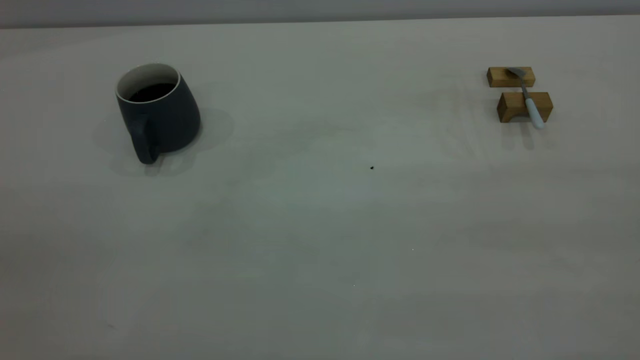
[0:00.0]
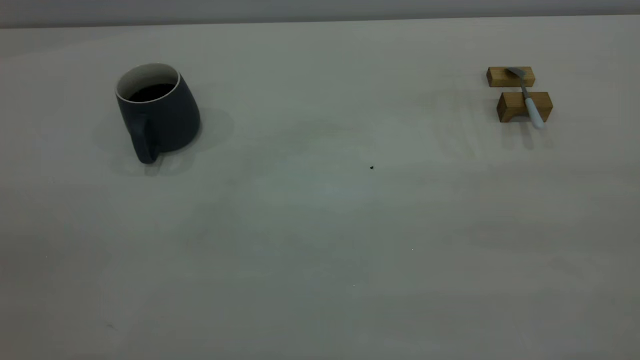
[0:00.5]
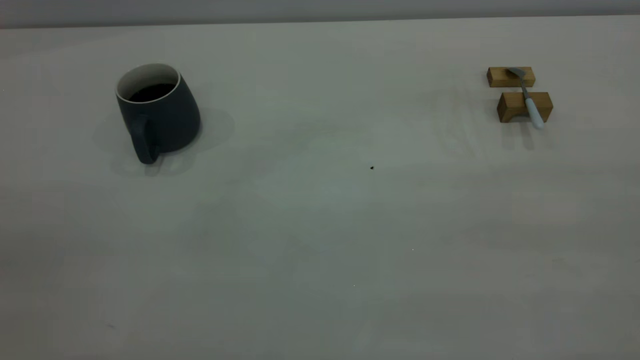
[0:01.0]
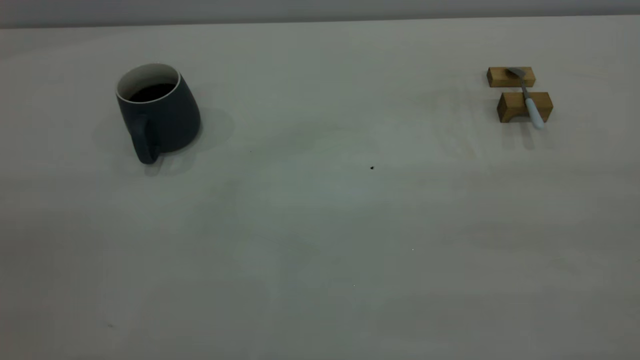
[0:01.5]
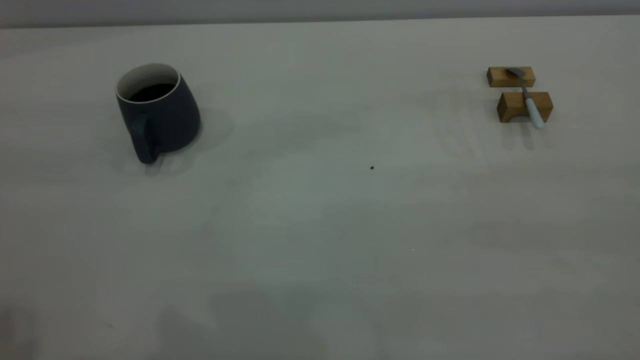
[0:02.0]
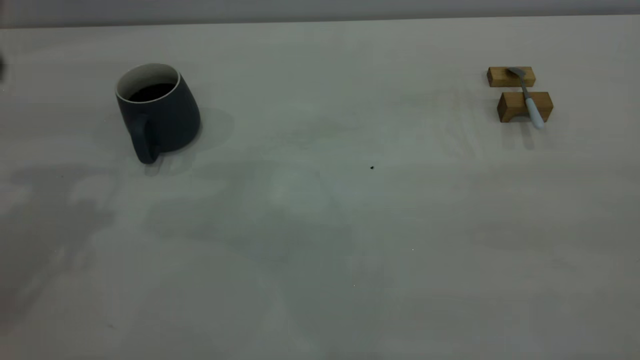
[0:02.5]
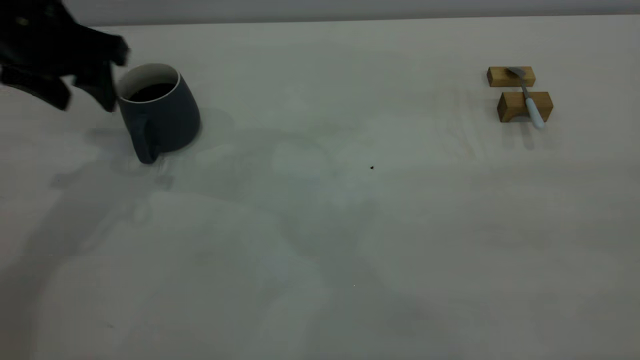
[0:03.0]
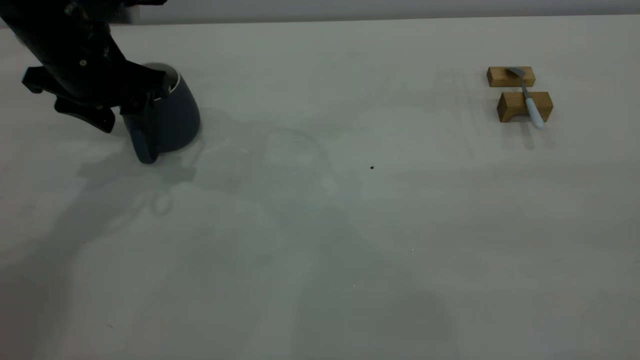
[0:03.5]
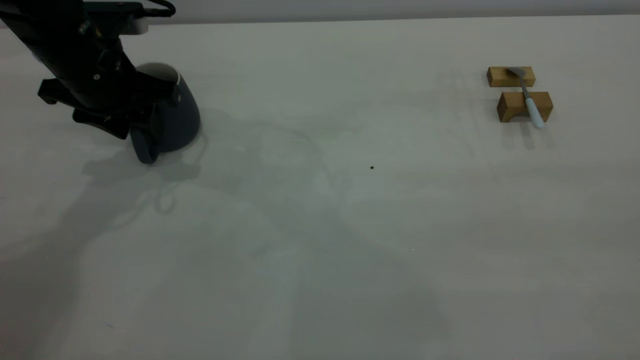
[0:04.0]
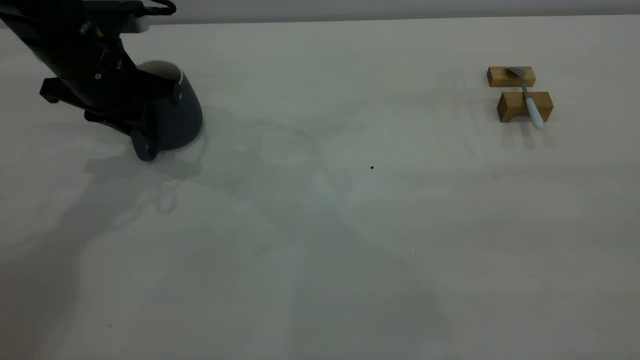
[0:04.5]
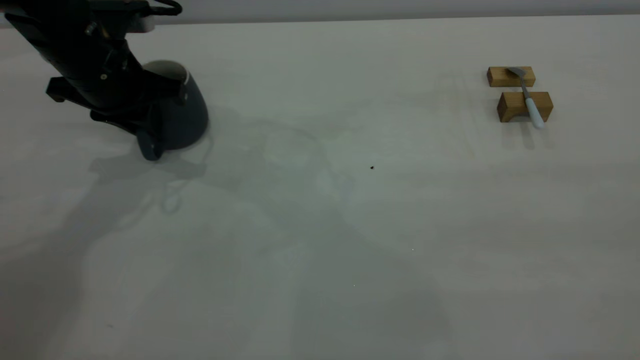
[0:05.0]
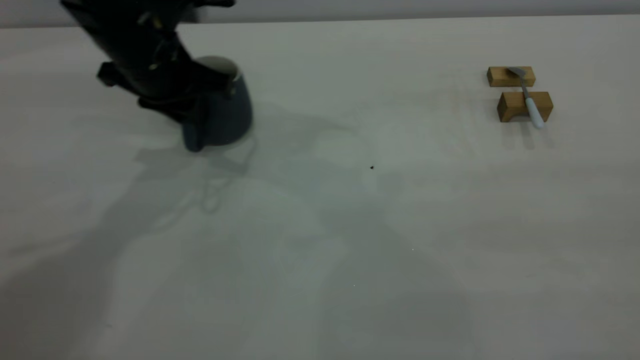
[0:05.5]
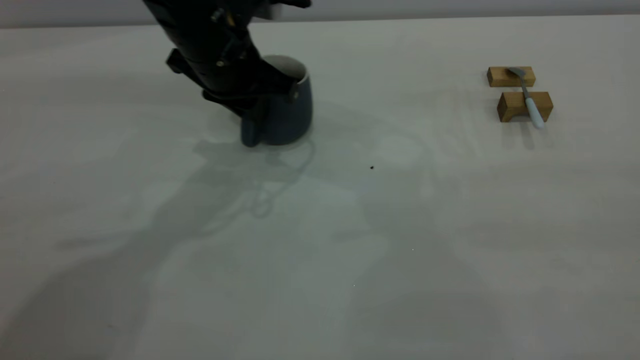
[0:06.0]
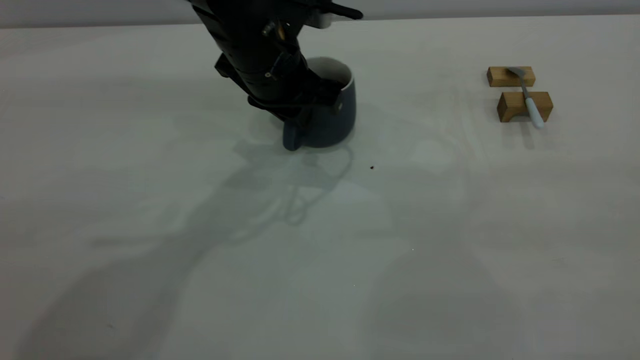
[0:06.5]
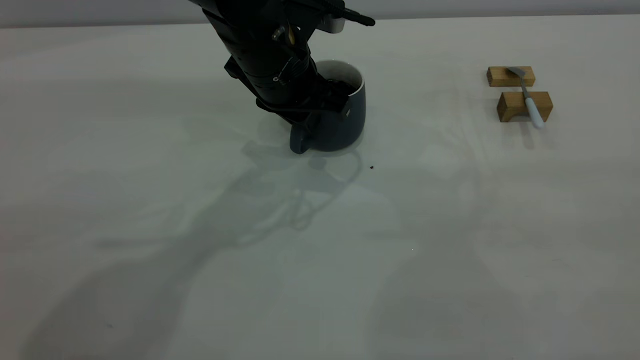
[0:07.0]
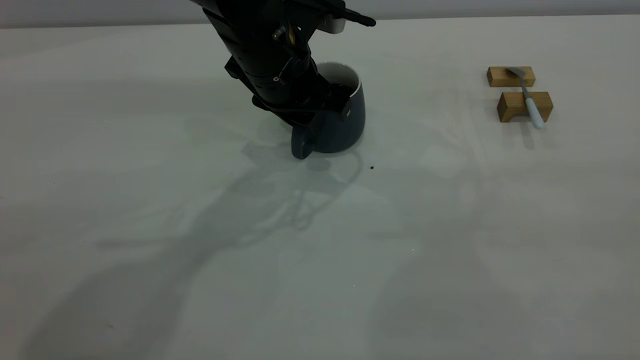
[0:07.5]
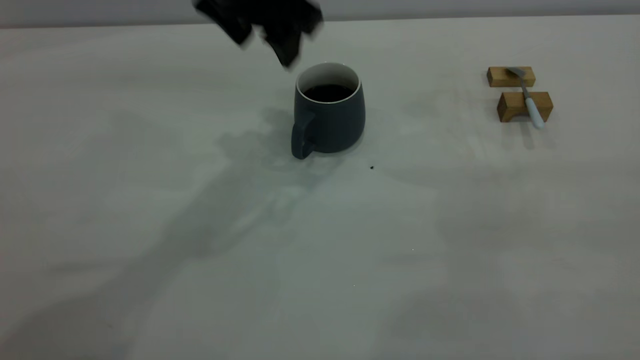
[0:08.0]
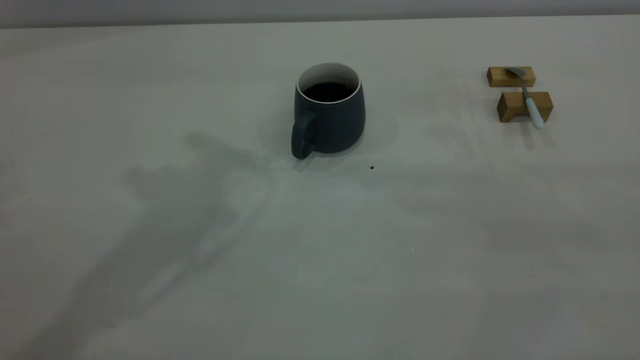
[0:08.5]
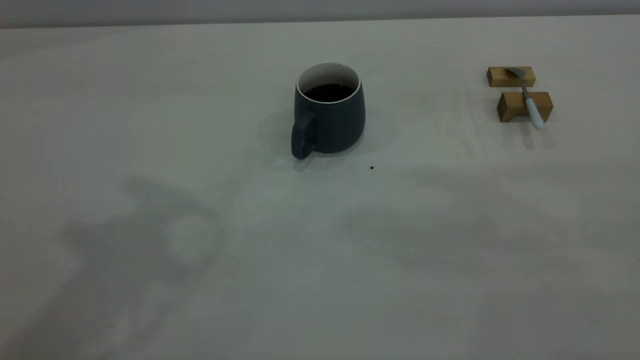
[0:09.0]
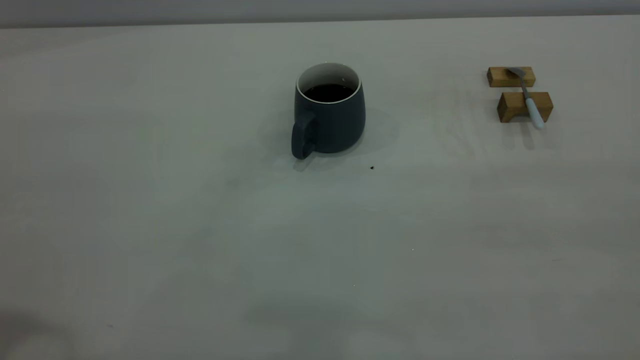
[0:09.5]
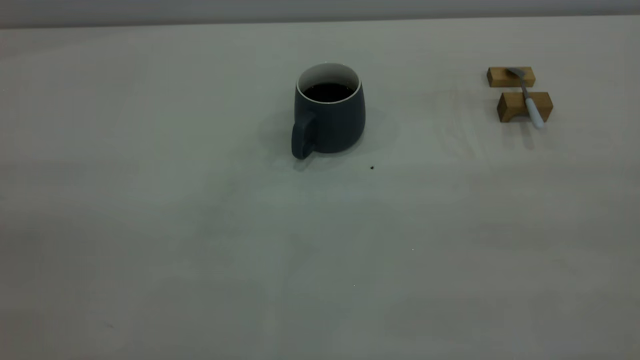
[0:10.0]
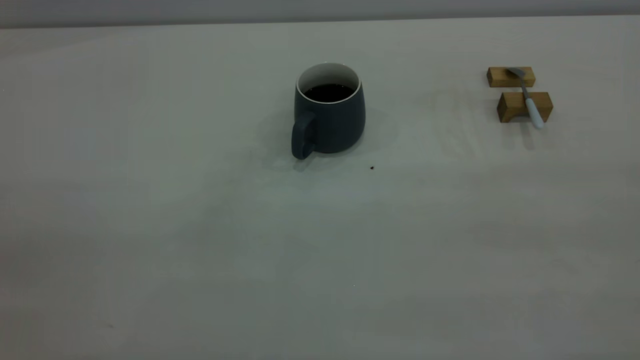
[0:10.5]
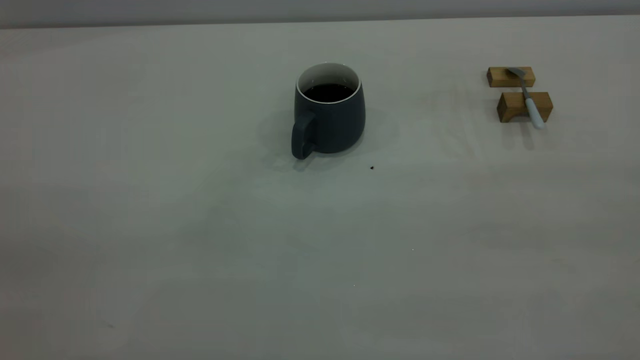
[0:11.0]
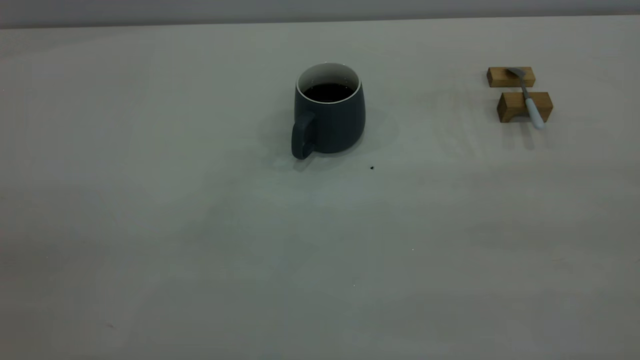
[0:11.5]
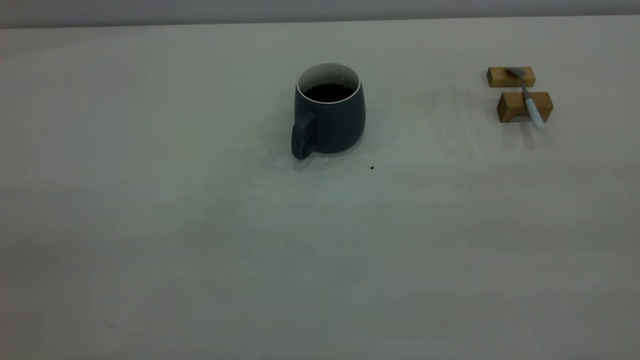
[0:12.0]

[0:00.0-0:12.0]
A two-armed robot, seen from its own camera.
Step, 0:00.0 to 0:08.0: Move the cup with coffee to the center of view.
0:02.0 to 0:04.0: The left gripper shifts some 35 cm forward and downward.
0:04.0 to 0:06.0: The left gripper shifts about 15 cm to the right, and closes.
0:06.0 to 0:08.0: The left gripper heads upward, covering some 10 cm, and opens.
0:08.0 to 0:10.0: The left gripper heads backward and to the left, covering roughly 40 cm, and closes.

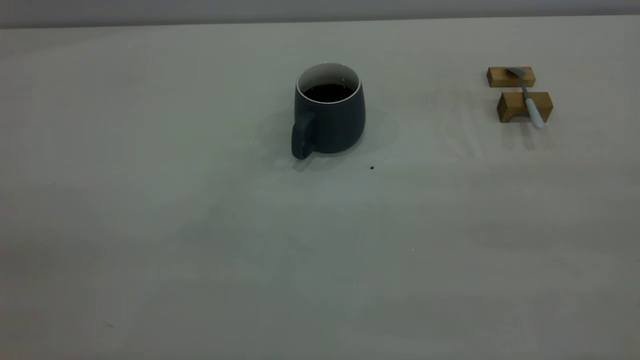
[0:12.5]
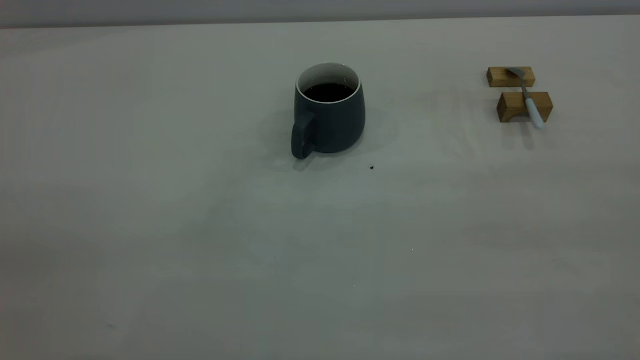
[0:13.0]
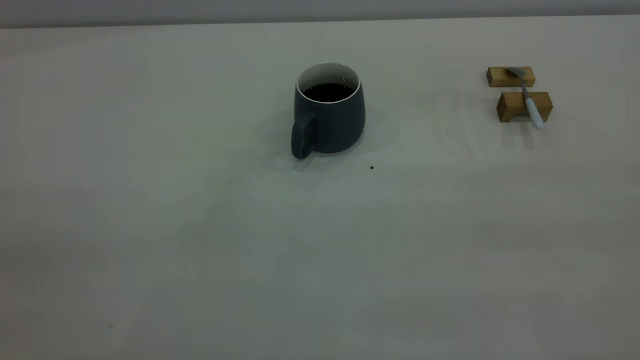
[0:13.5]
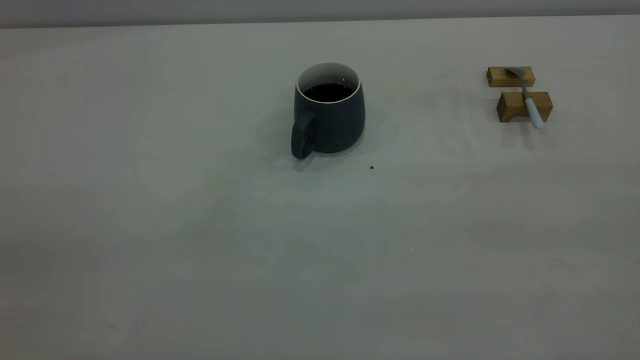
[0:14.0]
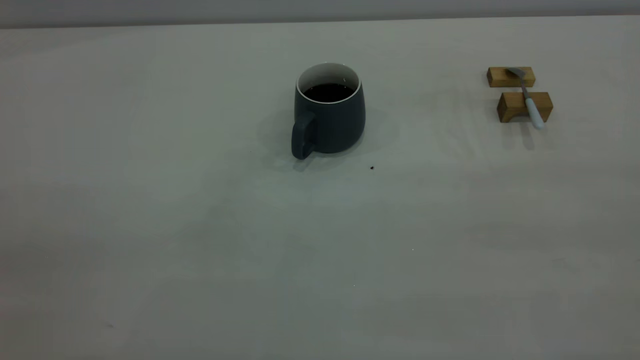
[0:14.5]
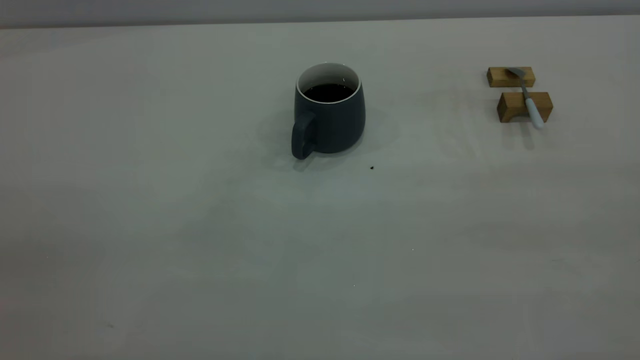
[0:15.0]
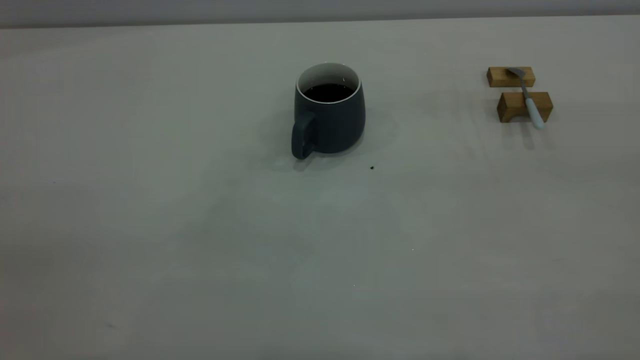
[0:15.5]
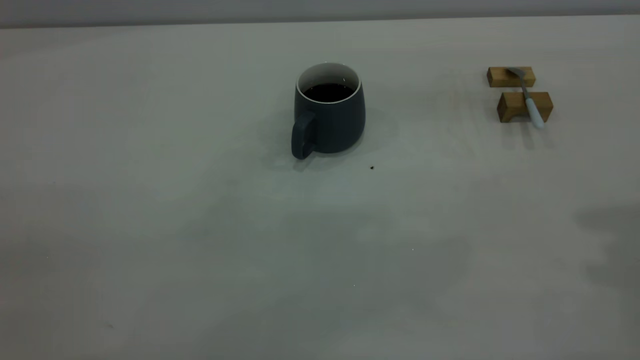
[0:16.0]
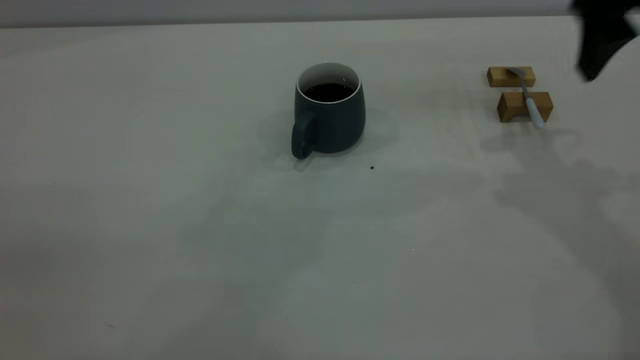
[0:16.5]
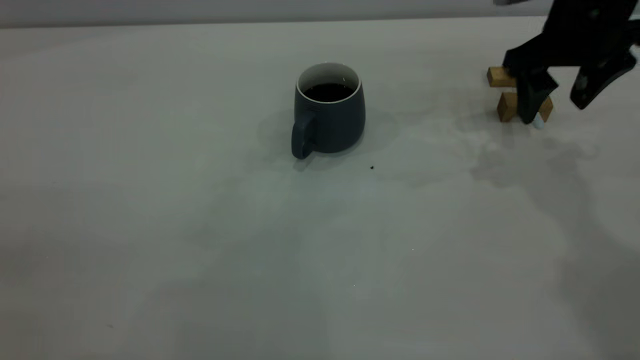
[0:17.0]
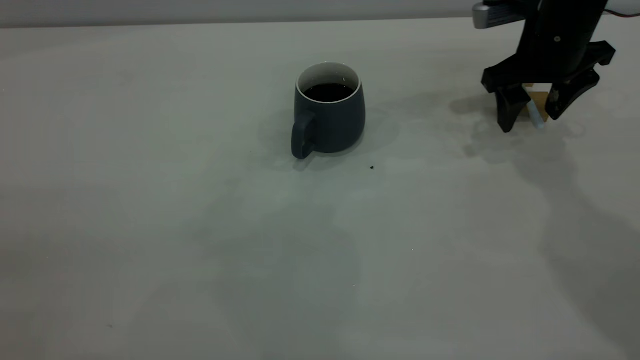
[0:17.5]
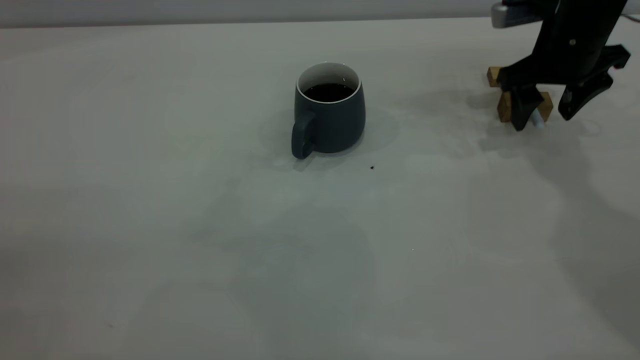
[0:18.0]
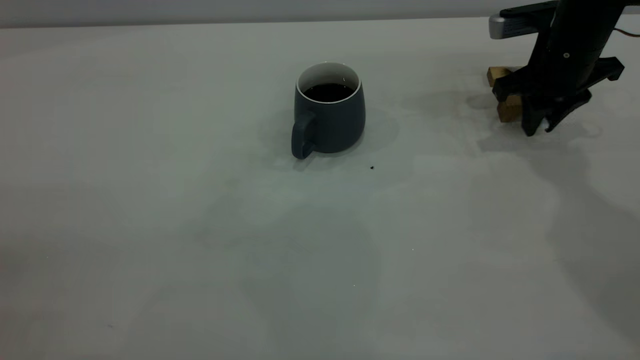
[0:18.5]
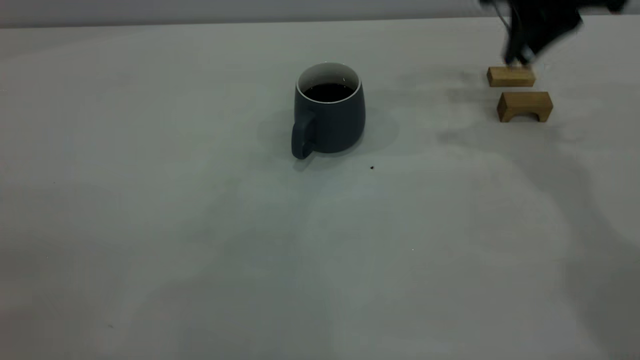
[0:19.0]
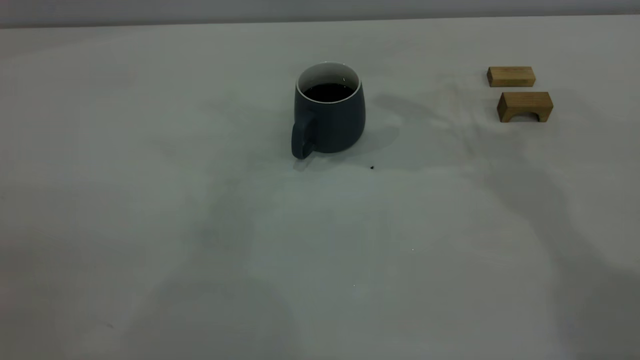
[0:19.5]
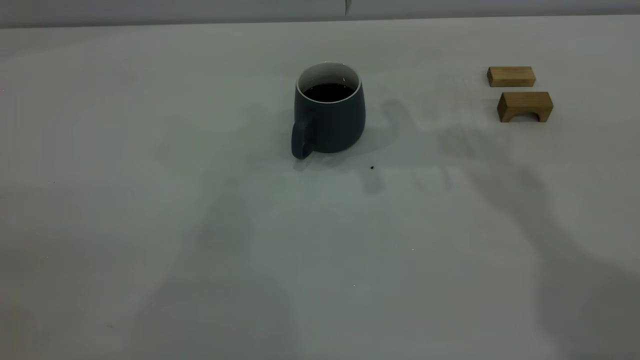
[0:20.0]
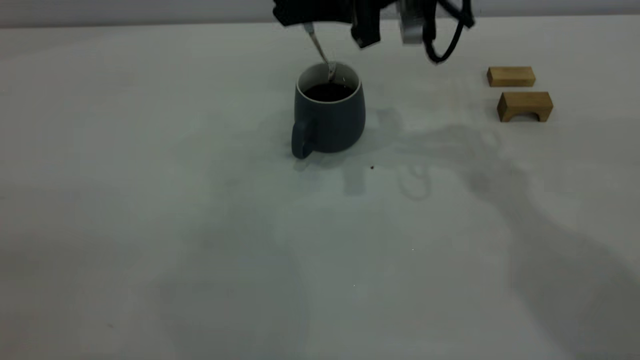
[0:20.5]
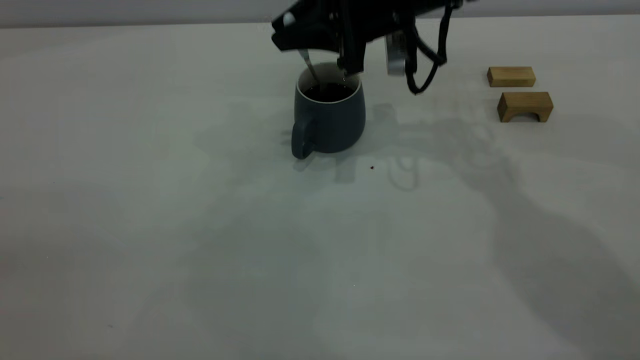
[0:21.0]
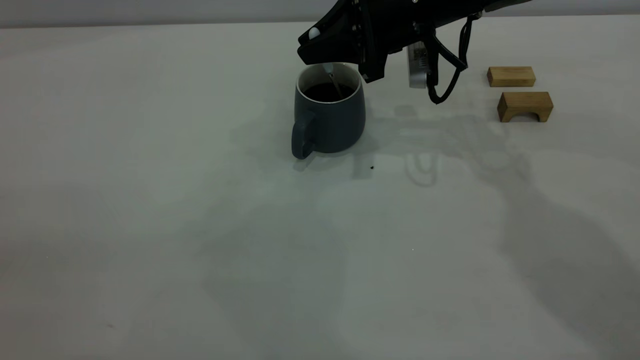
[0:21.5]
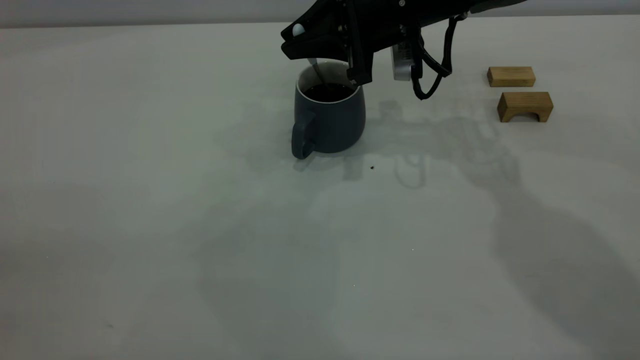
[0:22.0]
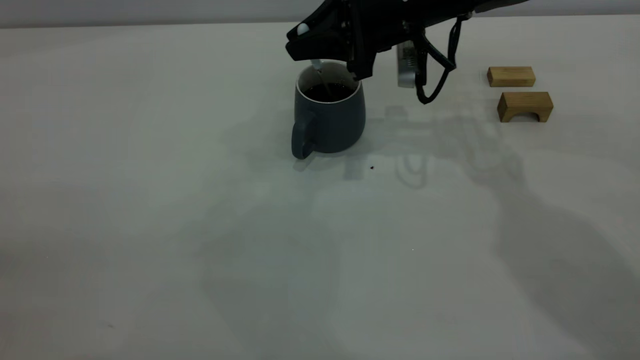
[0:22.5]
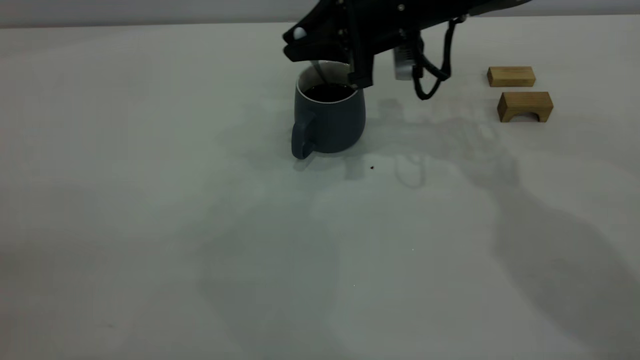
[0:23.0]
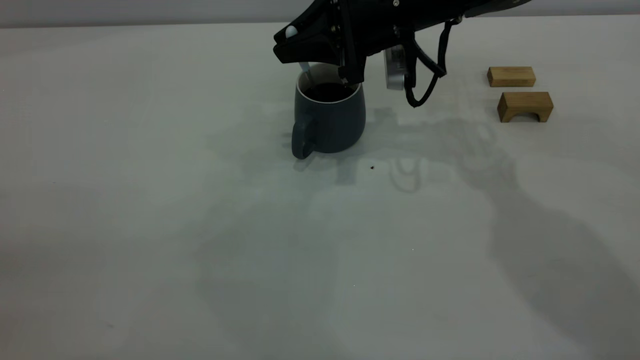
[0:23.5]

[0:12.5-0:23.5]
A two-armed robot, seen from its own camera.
Step, 0:12.5 to 0:18.5: Pick up the spoon.
0:12.5 to 0:14.5: The two grippers keep their place.
0:16.0 to 0:18.0: The right gripper heads downward and forward, covering some 35 cm.
0:18.0 to 0:20.0: The right gripper moves to the left and upward, roughly 25 cm, and closes.
0:20.0 to 0:21.5: The right gripper moves downward, approximately 15 cm.
0:21.5 to 0:23.5: The grippers make only small movements.
